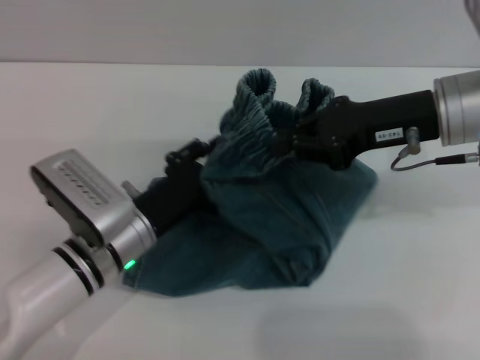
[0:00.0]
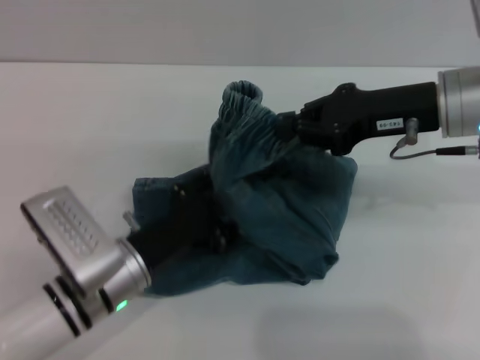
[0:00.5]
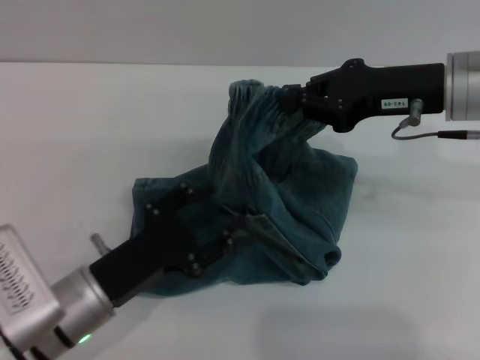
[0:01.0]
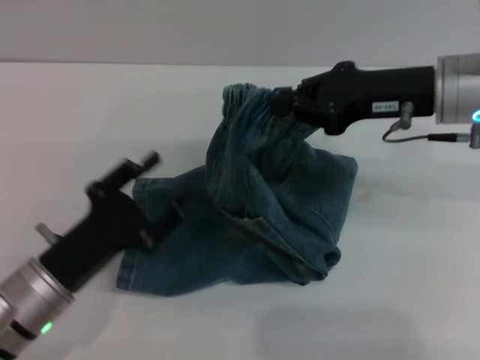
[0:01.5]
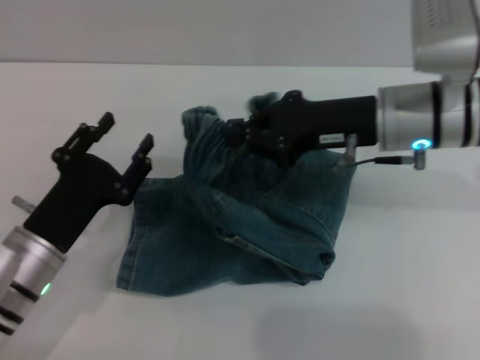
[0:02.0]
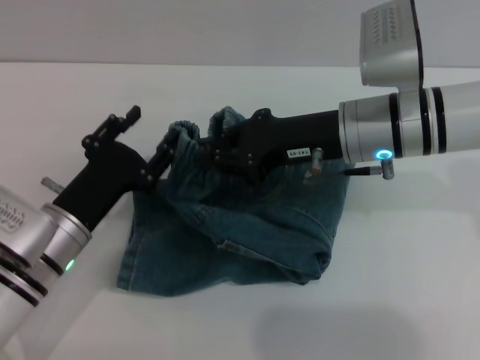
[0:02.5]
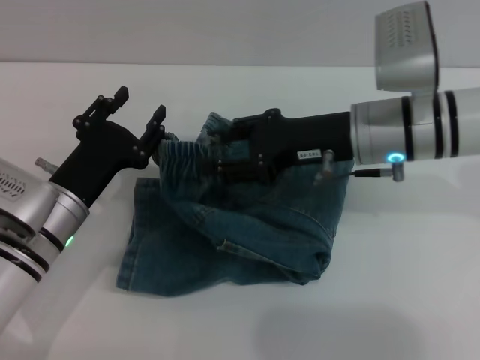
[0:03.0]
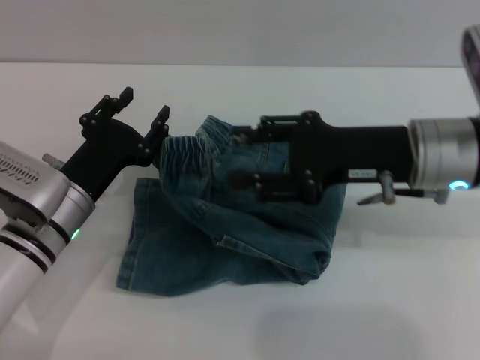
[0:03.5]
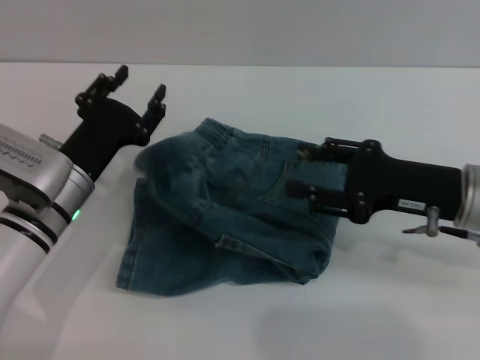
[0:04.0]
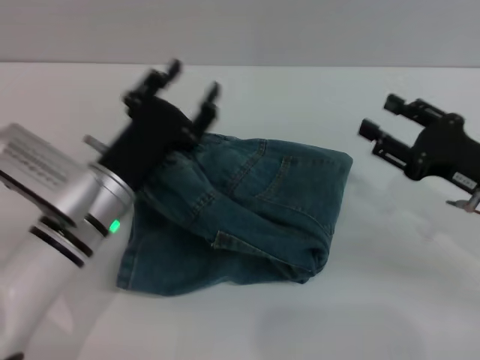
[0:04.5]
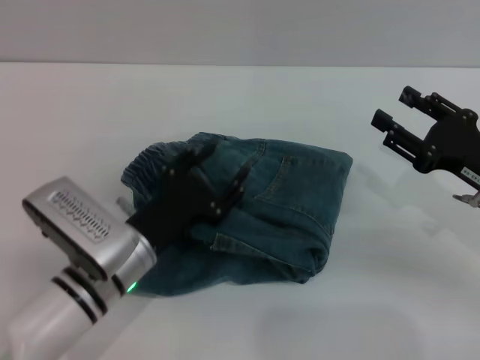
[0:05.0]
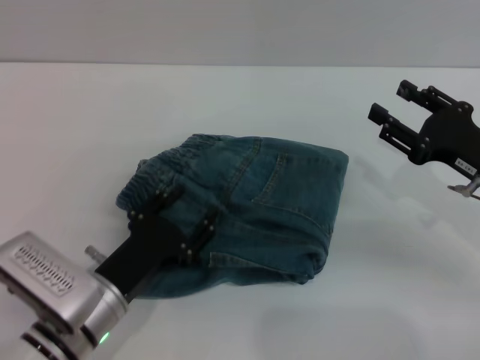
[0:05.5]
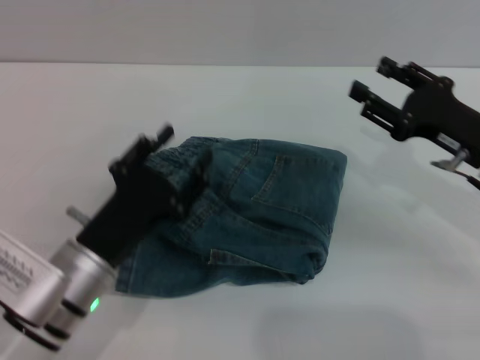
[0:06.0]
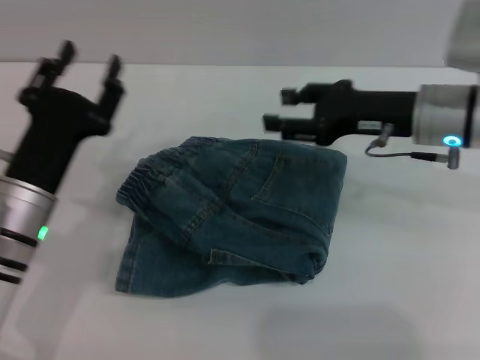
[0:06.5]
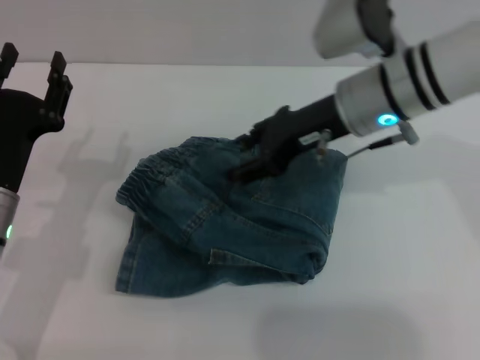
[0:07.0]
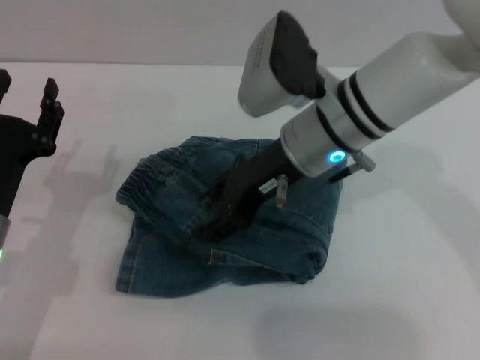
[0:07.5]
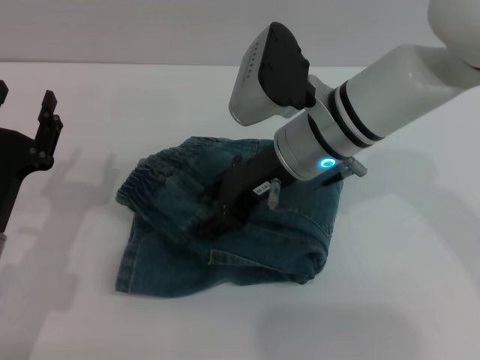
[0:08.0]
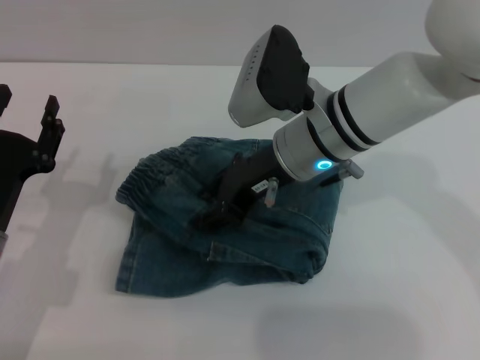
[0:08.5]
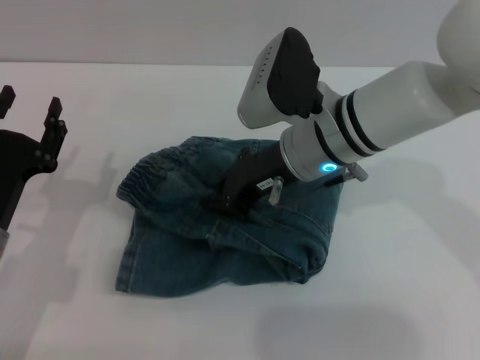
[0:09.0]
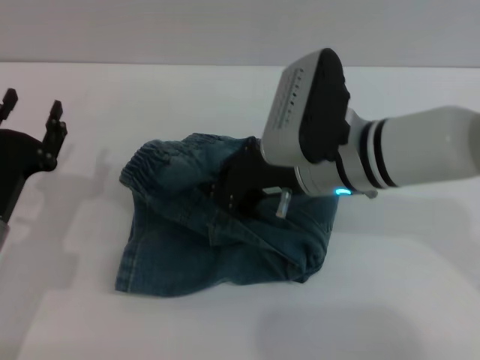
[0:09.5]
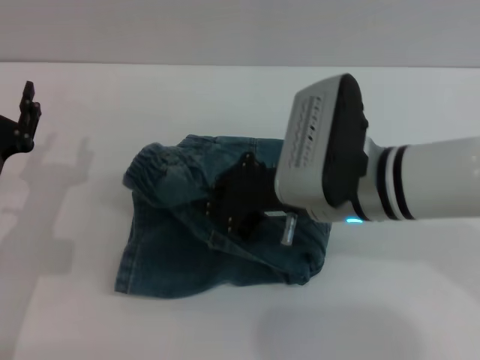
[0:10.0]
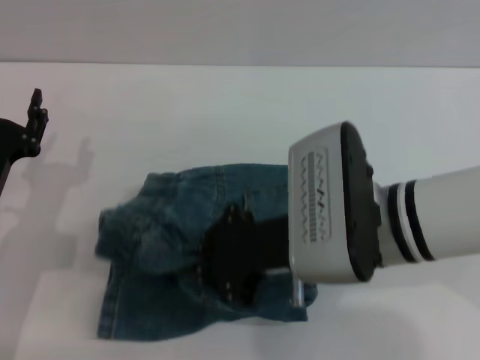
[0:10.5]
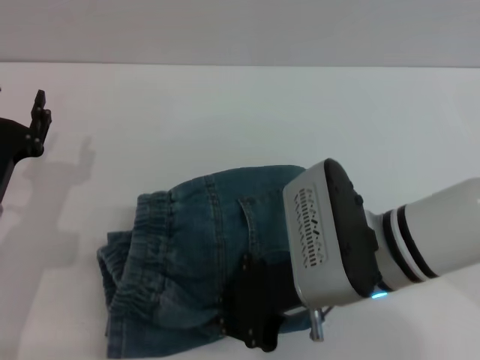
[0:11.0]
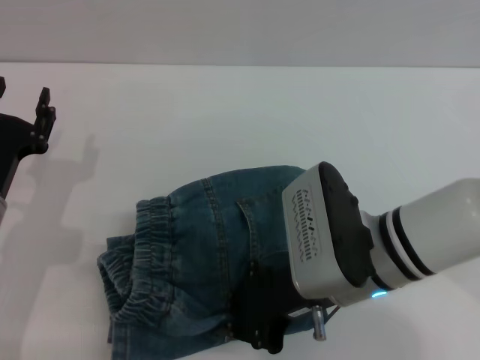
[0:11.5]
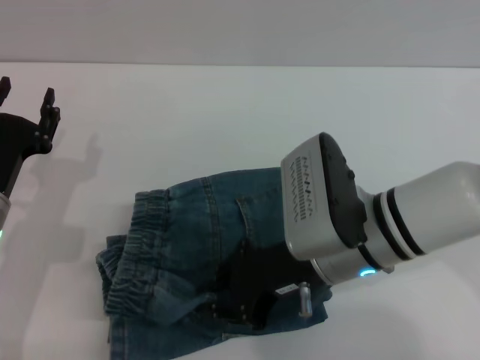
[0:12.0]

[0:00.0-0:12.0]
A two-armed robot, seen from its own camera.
0:00.0 to 0:02.0: The right gripper shifts by roughly 5 cm. Meanwhile the left gripper goes approximately 5 cm to the left.
0:02.0 to 0:04.0: The right gripper heads to the right and backward, covering approximately 10 cm, and opens. Meanwhile the left gripper moves forward, about 5 cm.
0:04.0 to 0:06.0: The left gripper goes approximately 10 cm backward.
0:06.0 to 0:08.0: The right gripper heads to the left, covering some 20 cm. The left gripper is displaced to the left by approximately 10 cm.
0:08.0 to 0:10.0: The right gripper shifts some 5 cm backward, and closes up.

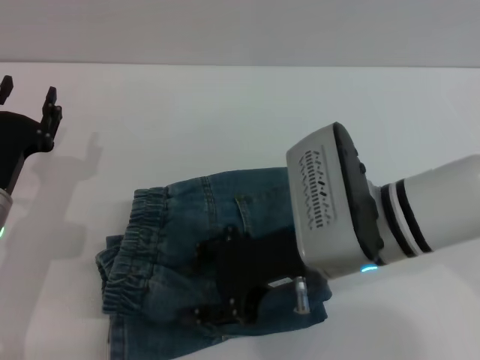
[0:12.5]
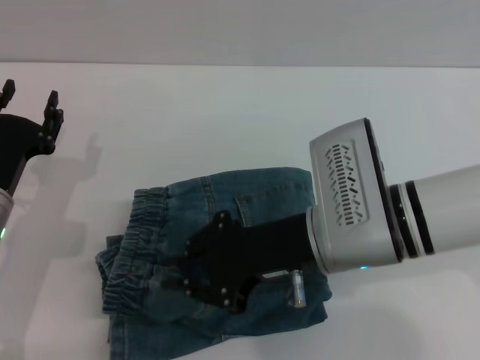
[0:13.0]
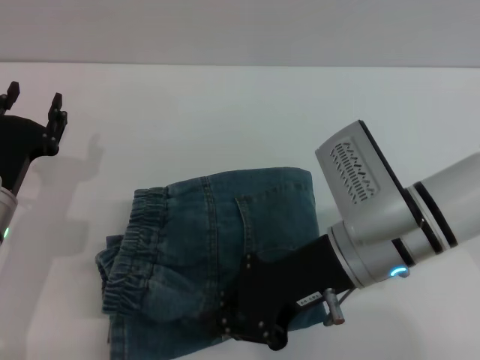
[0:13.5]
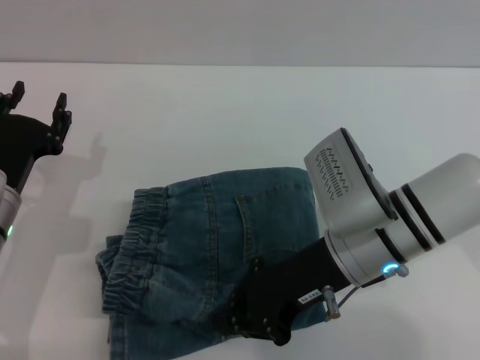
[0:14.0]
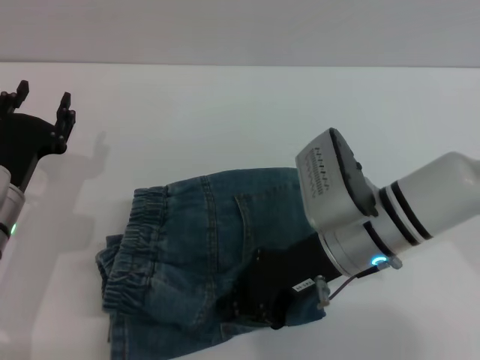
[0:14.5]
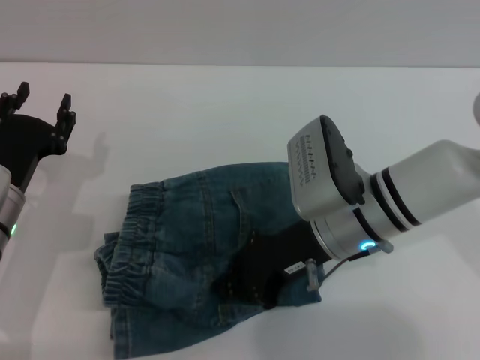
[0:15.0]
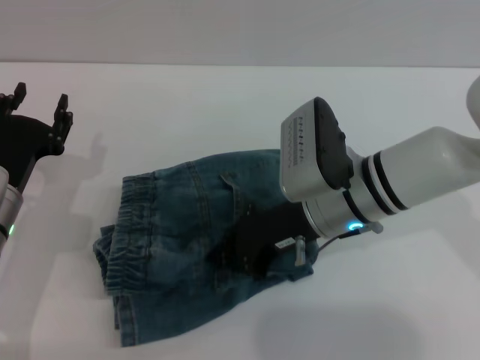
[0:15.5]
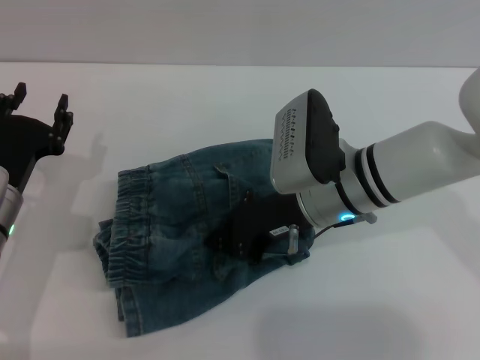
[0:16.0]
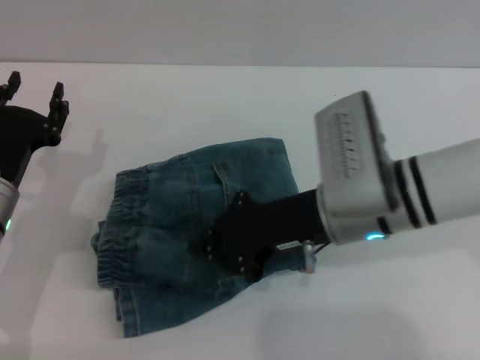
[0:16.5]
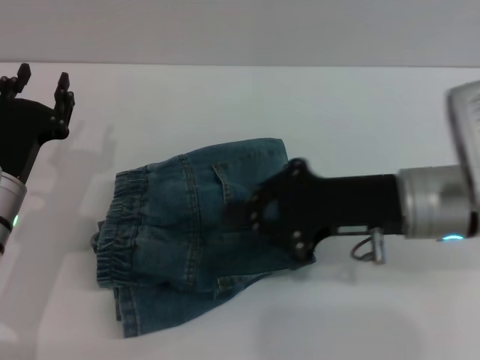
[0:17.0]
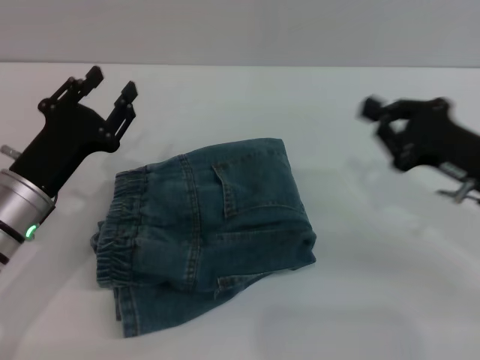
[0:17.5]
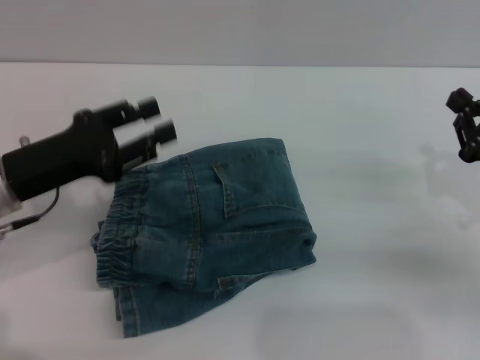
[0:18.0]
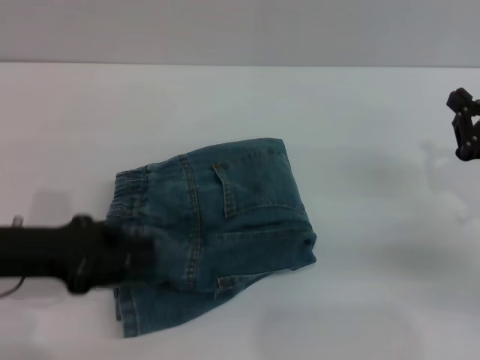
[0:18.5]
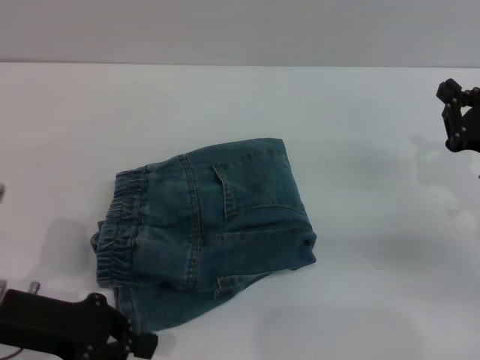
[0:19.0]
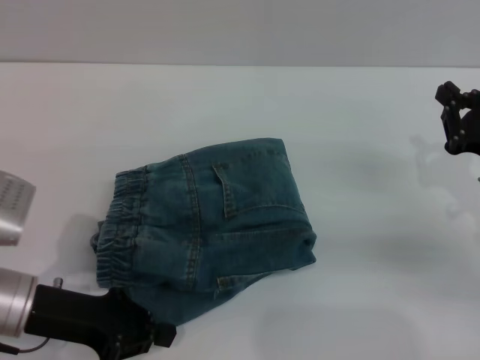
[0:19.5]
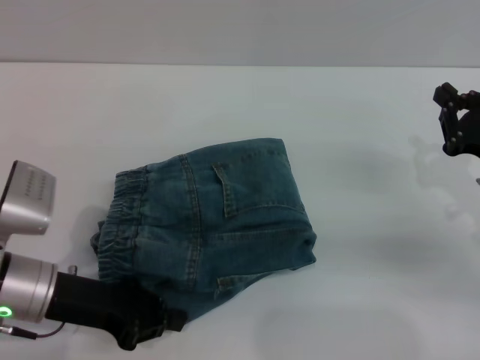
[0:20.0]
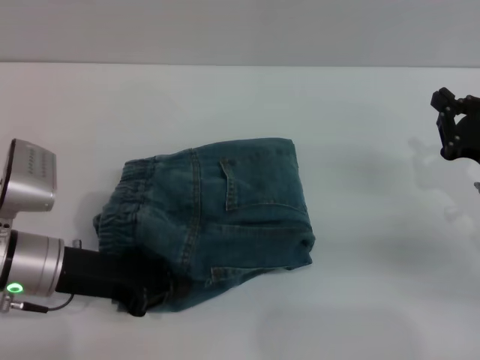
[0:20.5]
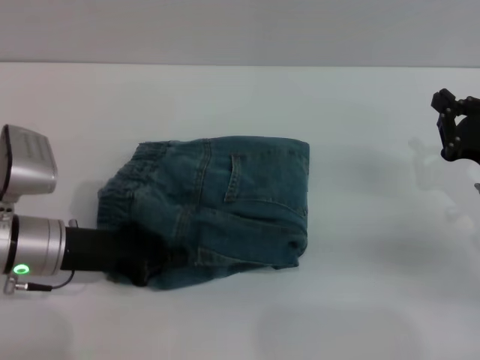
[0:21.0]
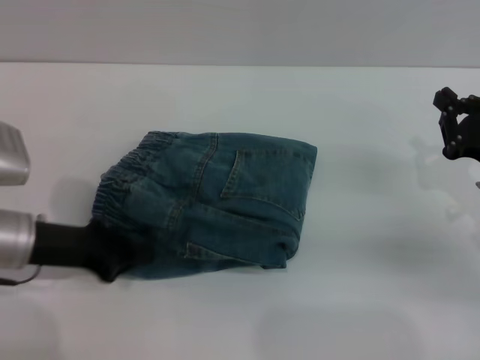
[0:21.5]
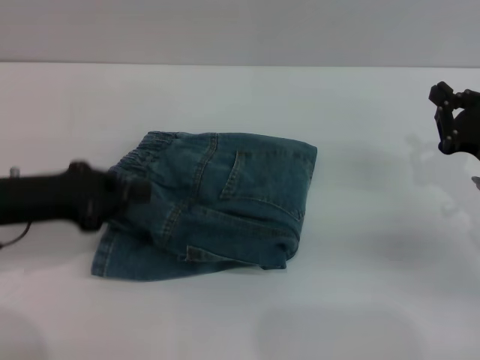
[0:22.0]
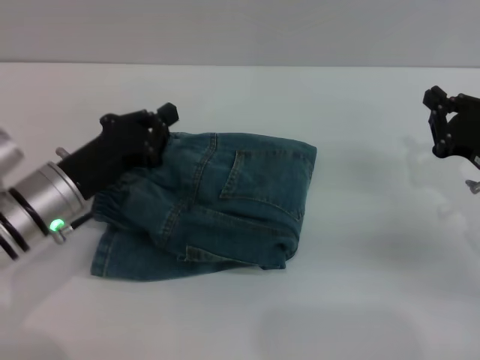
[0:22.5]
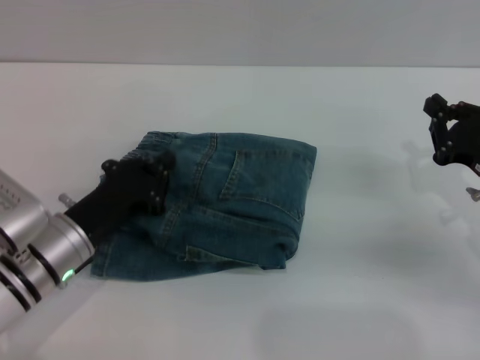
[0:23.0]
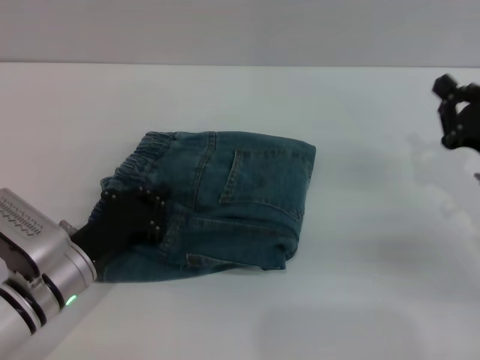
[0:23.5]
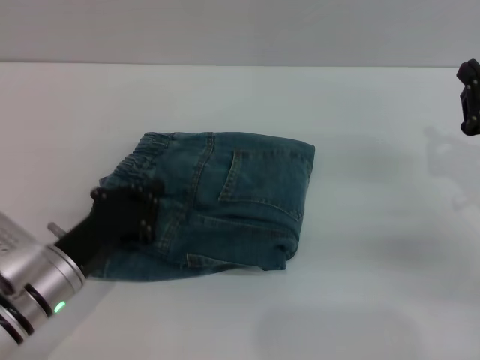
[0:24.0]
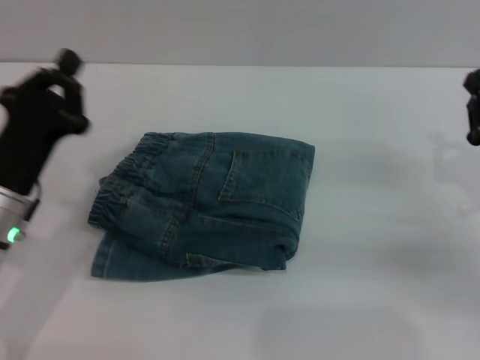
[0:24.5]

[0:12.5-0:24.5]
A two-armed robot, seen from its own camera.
Step, 0:13.5 to 0:17.0: Place the folded trousers onto the center area with the right grippers.
Step, 0:17.5 to 0:22.0: Place the folded trousers onto the center area with the left grippers.
0:12.5 to 0:14.5: The right gripper moves approximately 5 cm, and closes.
0:16.5 to 0:18.5: The right gripper travels to the right by about 20 cm, while the left gripper moves upward, about 5 cm.
0:18.5 to 0:20.5: The left gripper is displaced to the right by some 5 cm, and closes its fingers.

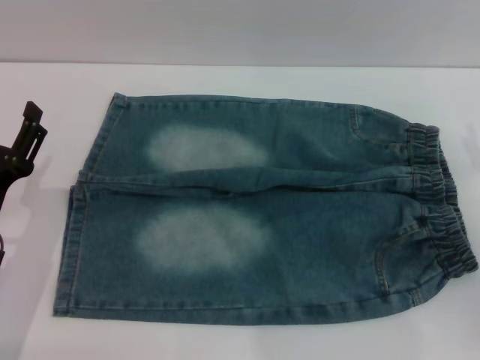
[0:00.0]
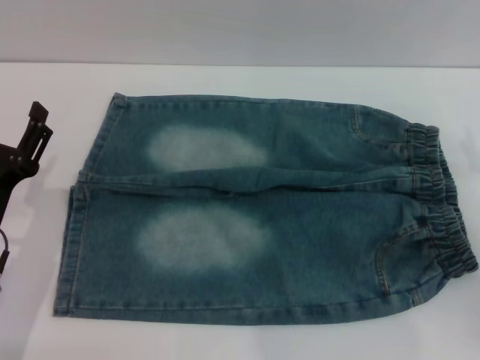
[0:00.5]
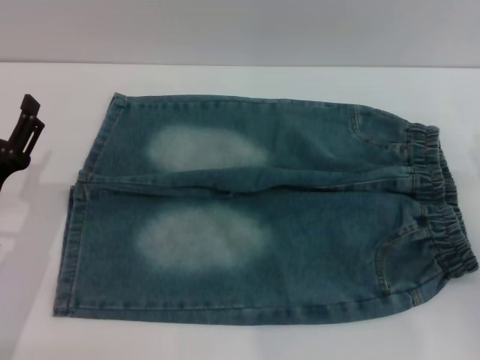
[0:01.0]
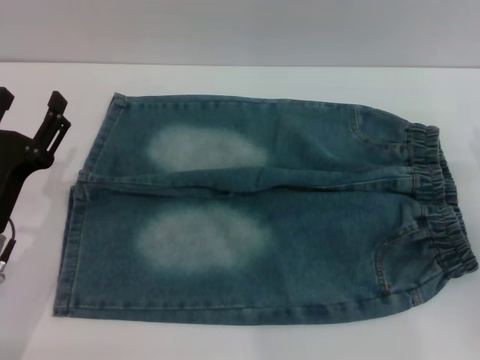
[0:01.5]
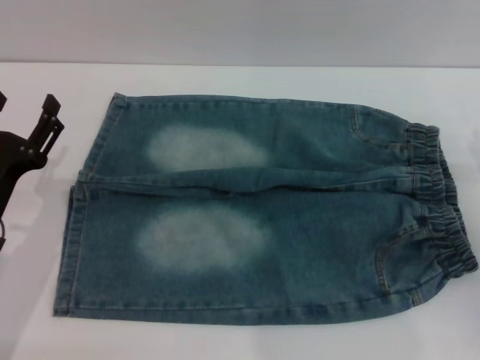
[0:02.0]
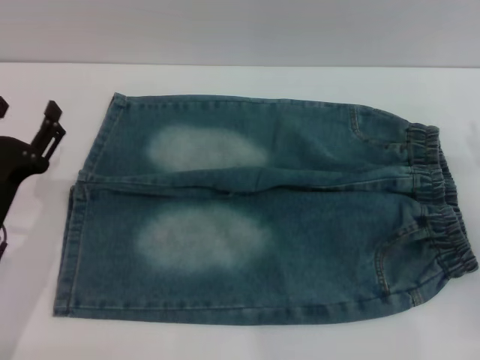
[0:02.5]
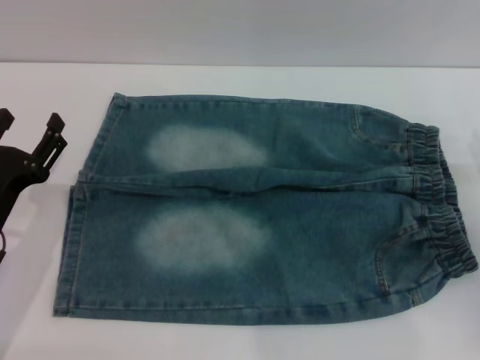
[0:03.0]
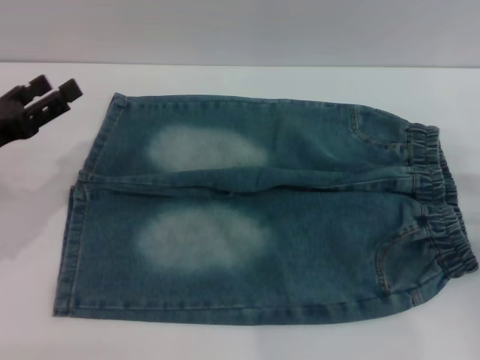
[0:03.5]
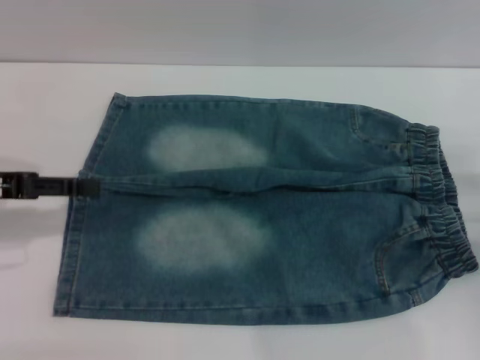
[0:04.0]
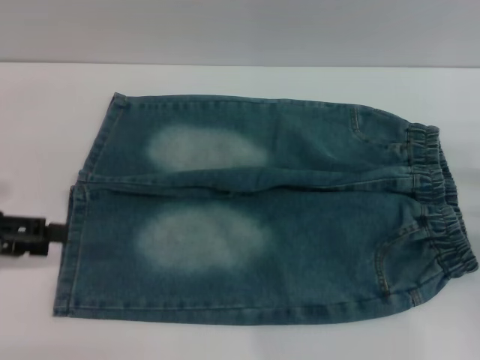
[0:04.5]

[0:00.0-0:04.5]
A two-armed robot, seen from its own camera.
0:00.0 to 0:02.0: The grippers make only small movements.
0:02.0 to 0:04.5: The left gripper goes roughly 15 cm upward and to the left.
